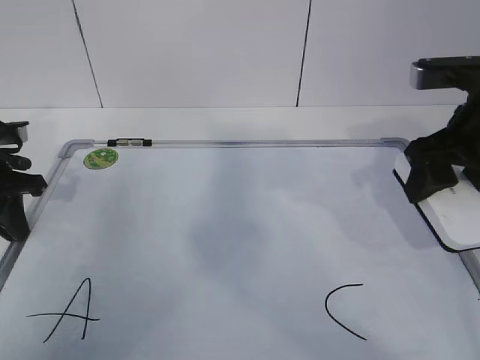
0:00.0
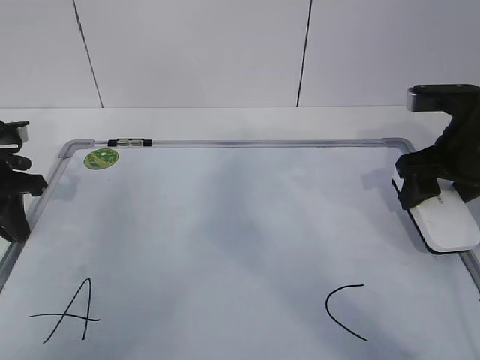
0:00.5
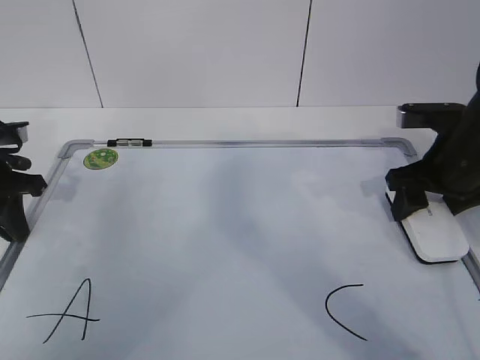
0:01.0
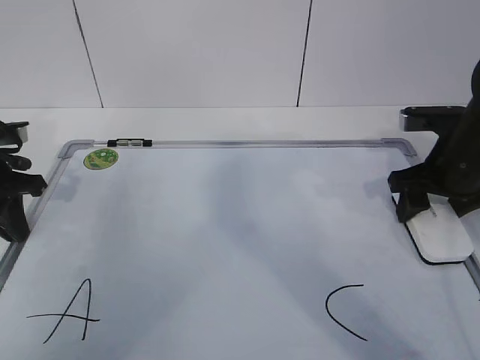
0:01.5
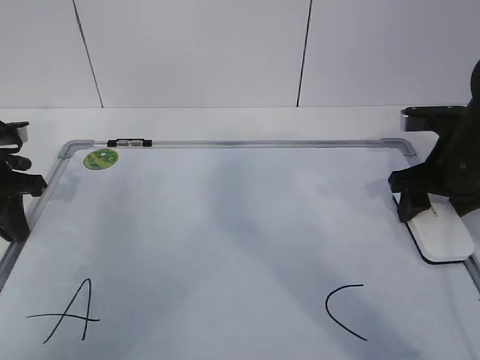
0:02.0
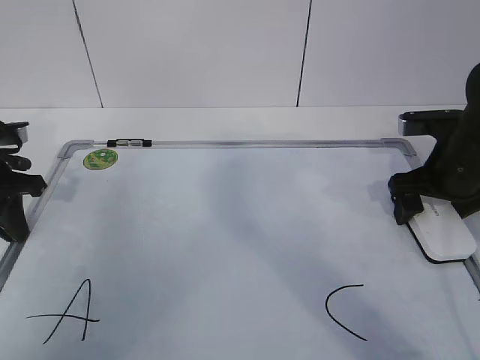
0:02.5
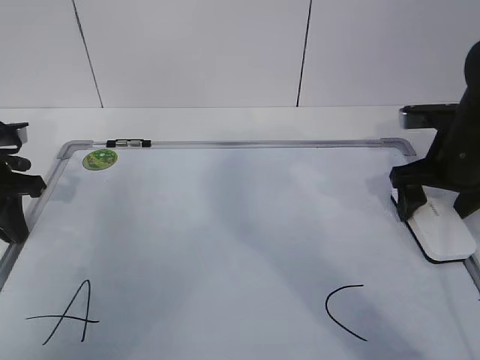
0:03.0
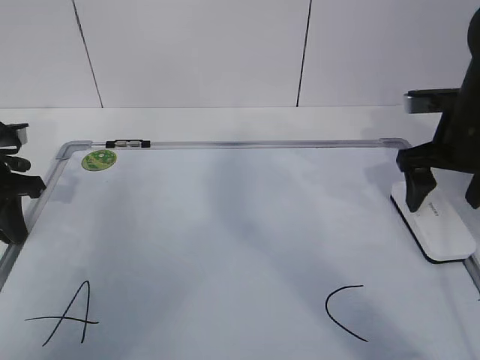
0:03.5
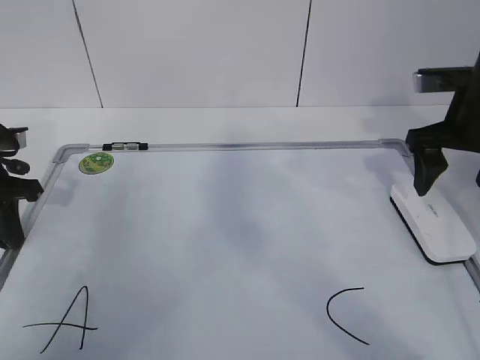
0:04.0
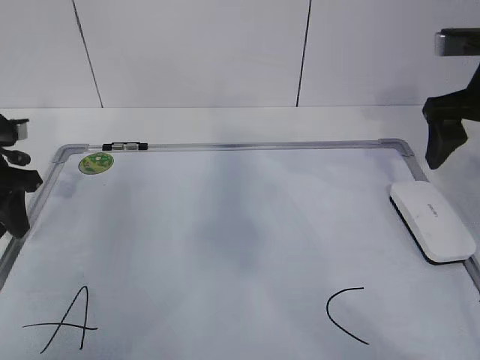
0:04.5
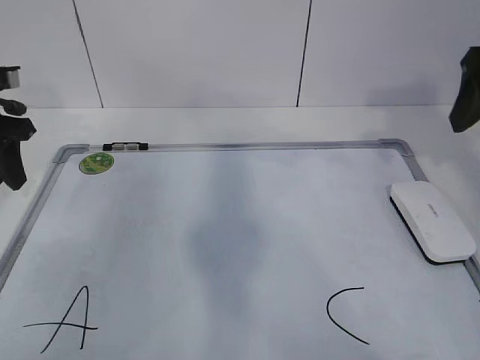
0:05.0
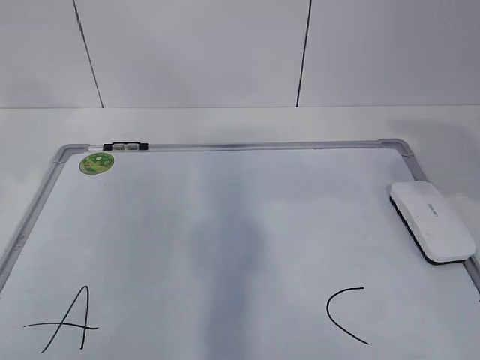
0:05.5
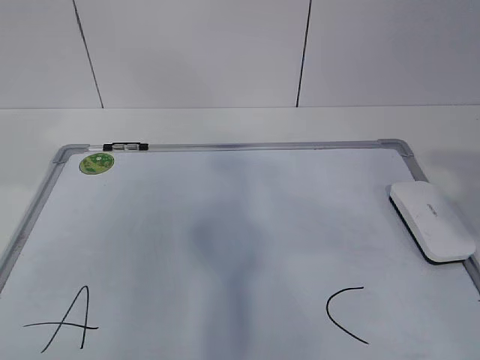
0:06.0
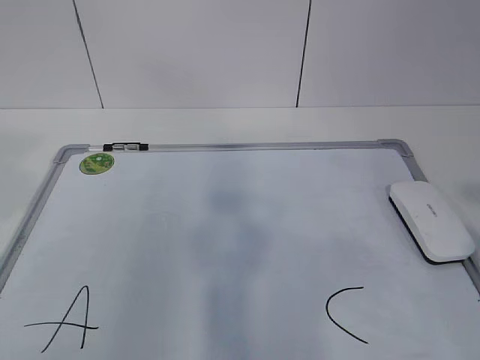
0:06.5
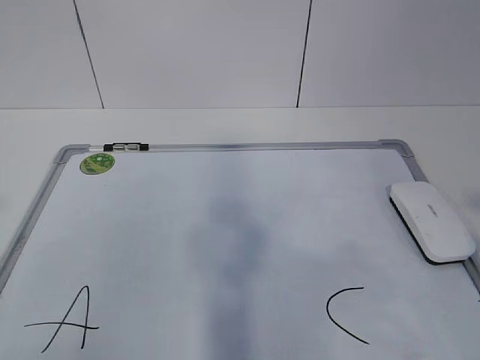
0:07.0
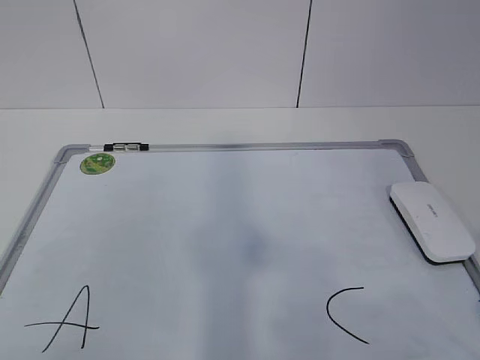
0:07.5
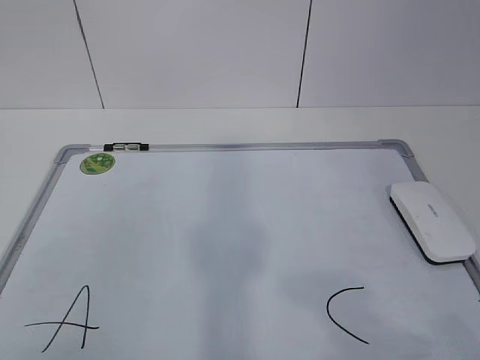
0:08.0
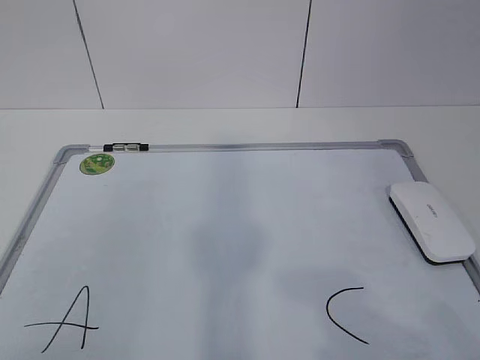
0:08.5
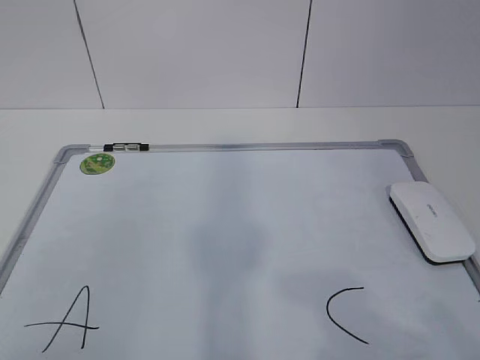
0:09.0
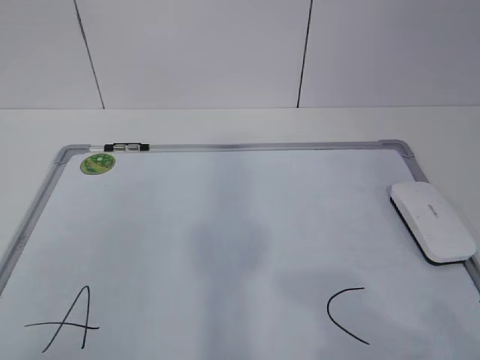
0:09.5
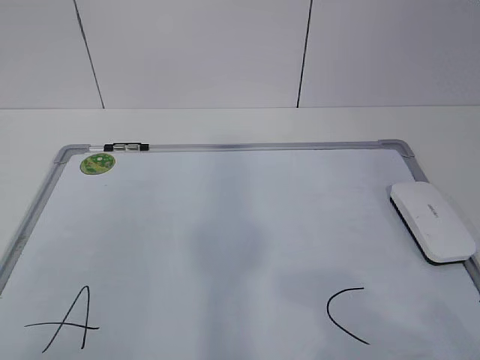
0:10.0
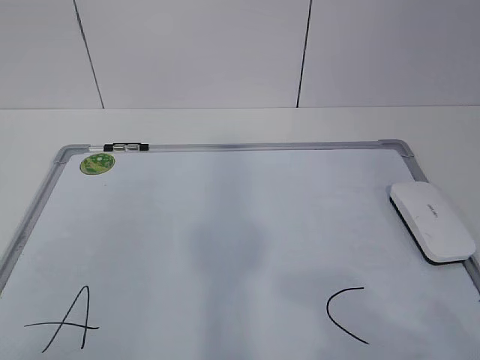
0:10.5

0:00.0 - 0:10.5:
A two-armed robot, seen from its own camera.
Task of the whole recording: pick up the eraser on the blackboard and erase the letter "B".
0:00.0 - 0:02.0: The right gripper heads downward, covering about 10 cm, and opens up.
0:02.0 - 0:04.0: The right gripper heads upward, covering some 5 cm, and opens its fingers.
0:04.0 - 0:06.5: The left gripper goes roughly 30 cm backward and upward, and opens its fingers, while the right gripper shifts about 35 cm backward.
0:08.5 - 0:10.5: Both grippers stay about where they are.
